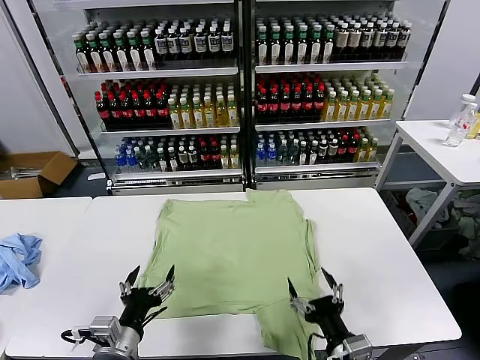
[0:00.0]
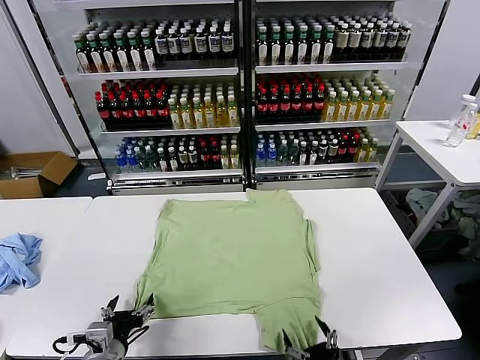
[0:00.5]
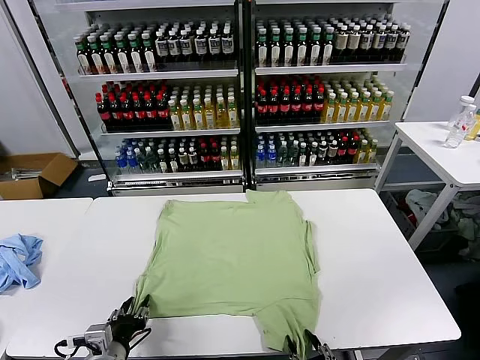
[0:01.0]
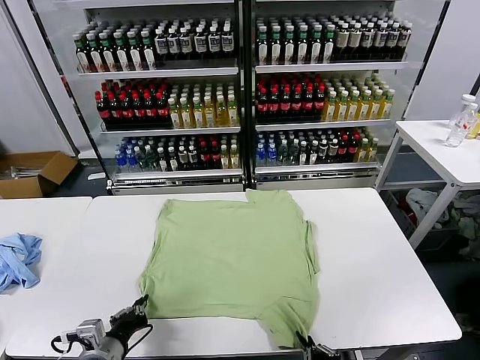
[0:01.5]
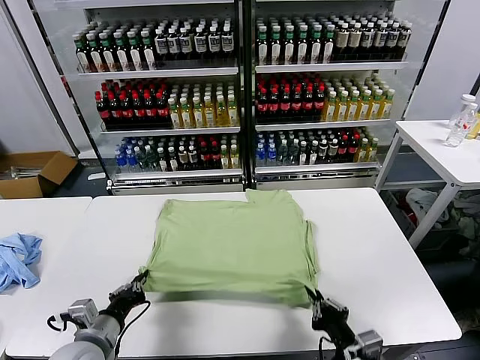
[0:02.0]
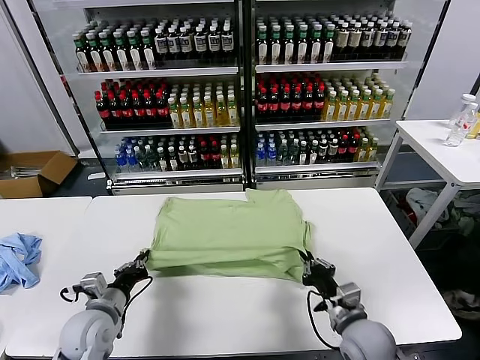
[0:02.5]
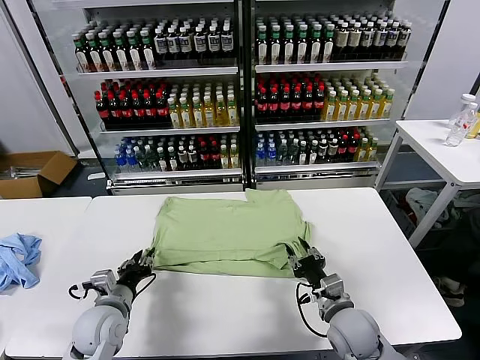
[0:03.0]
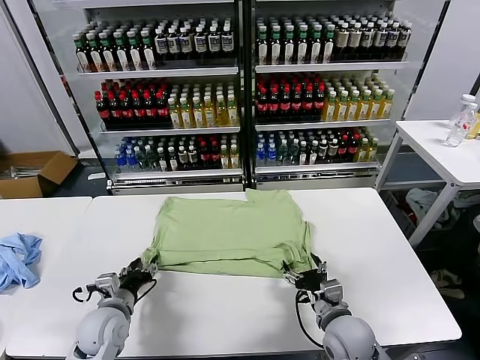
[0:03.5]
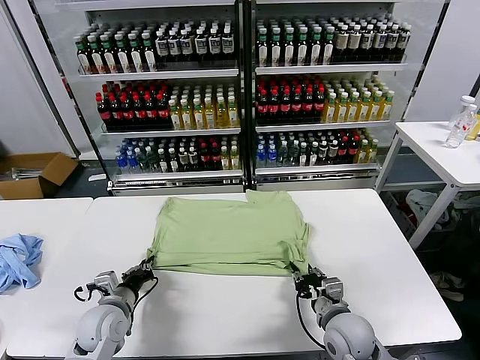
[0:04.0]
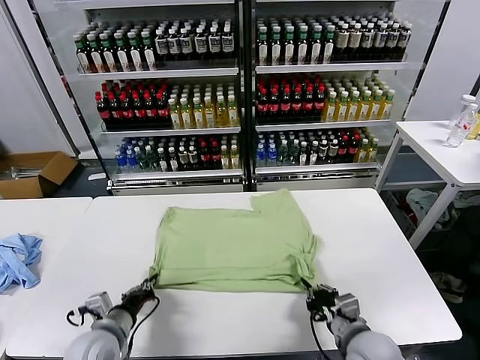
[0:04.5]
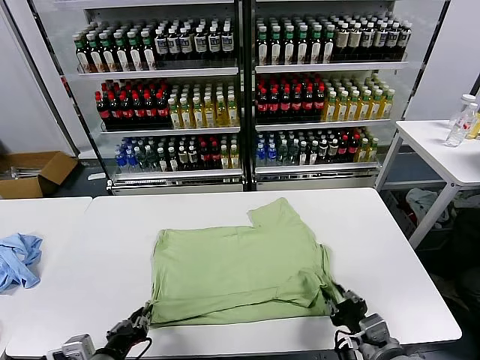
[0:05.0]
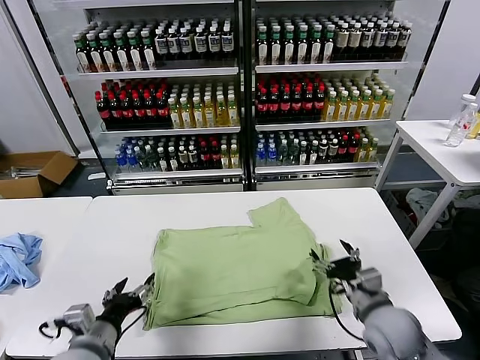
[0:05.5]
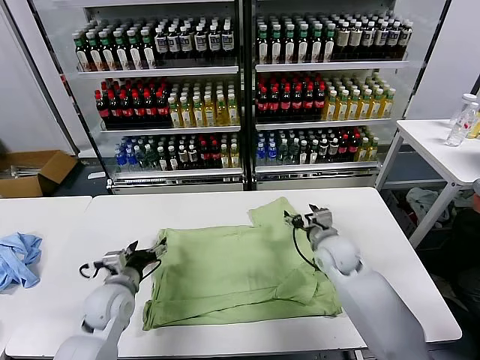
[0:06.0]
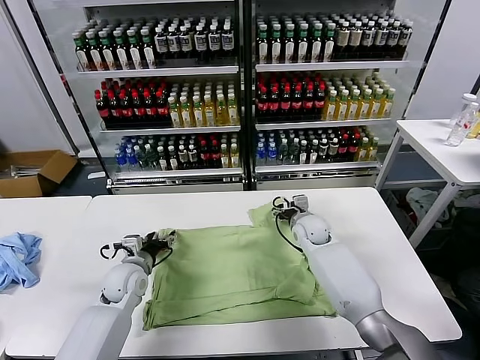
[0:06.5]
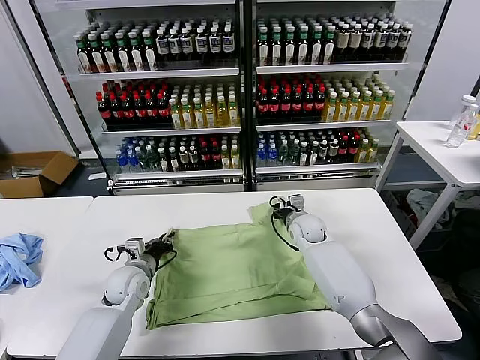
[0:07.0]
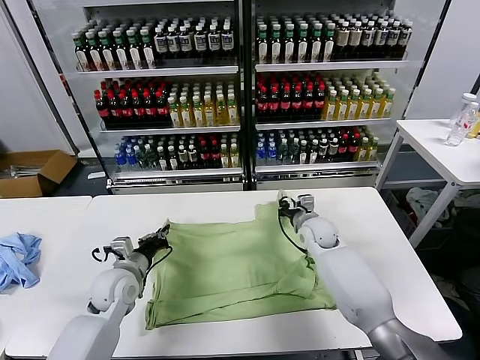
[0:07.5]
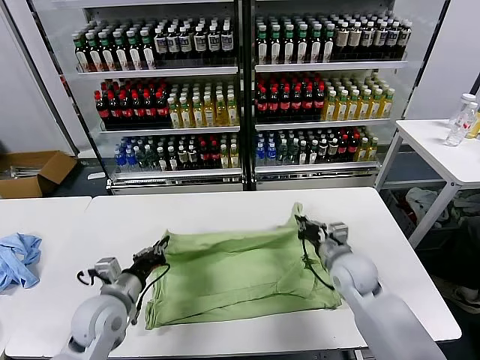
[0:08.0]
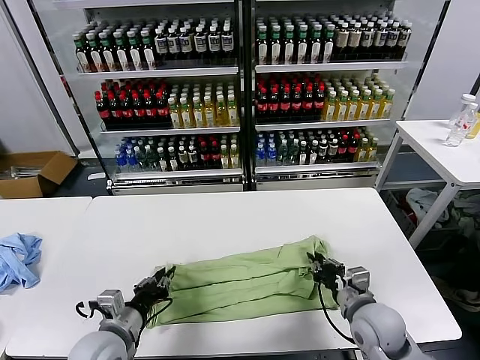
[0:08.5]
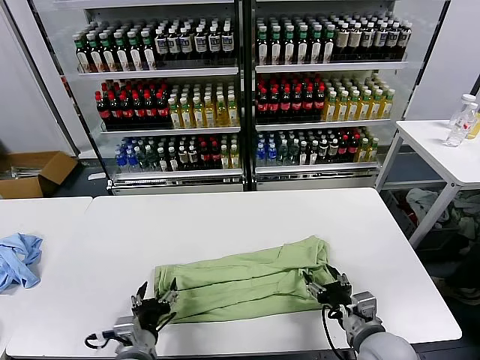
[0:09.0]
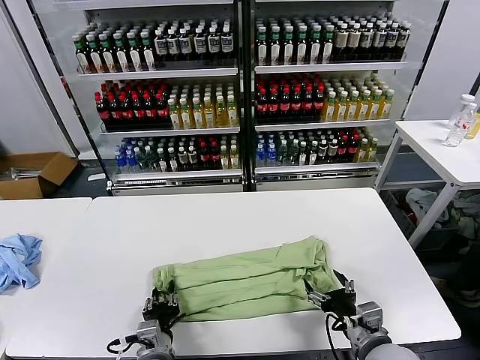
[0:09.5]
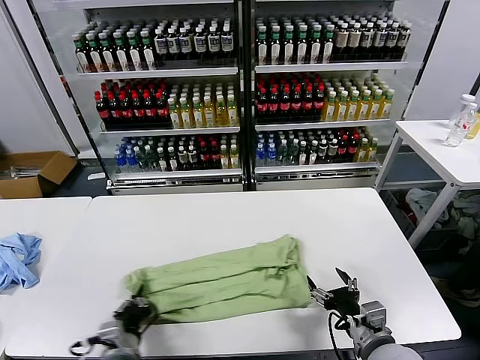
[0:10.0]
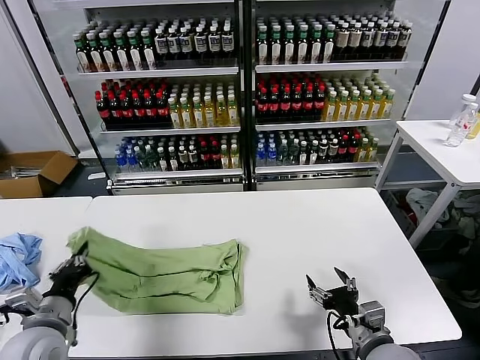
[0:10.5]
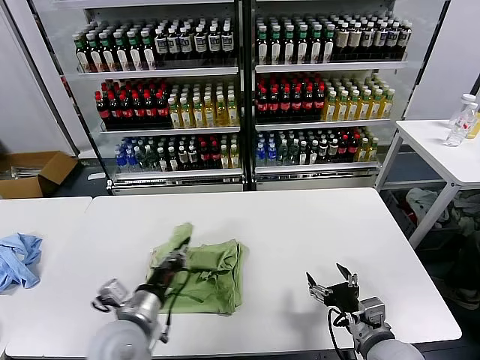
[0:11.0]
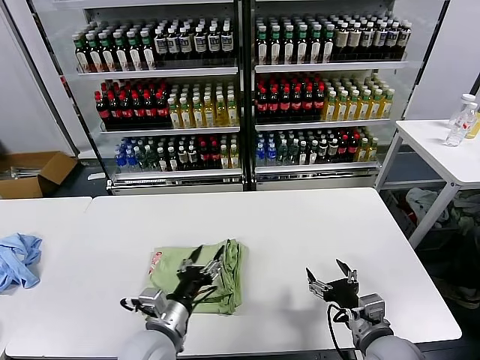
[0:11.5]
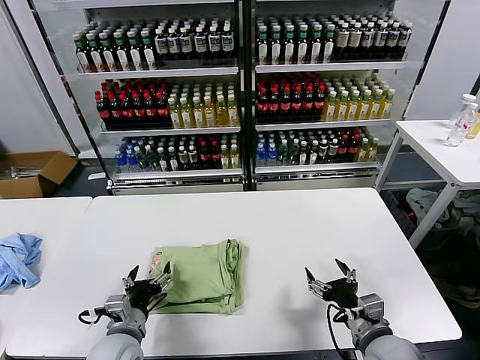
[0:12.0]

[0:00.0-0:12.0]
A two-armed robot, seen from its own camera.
Task of the whole recording: fold and organize the clothes.
Step, 0:00.0 to 0:01.0: use both grippers simultaneously to clamp the lower edge of the clothing fabric.
Step, 0:02.0 to 0:03.0: use both grippers to drag the lower edge of the fabric forward and fold it over the upper edge.
Step, 0:03.5 to 0:05.0: Drag the clothes downward with both gripper.
Step, 0:05.5 to 0:07.0: use both grippers simultaneously to clamp the upper edge of the clothing fabric.
Step, 0:07.5 to 0:08.5: use both grippers to drag the upper edge of the fabric backward and fold it over the lower edge.
Step, 0:09.0 to 0:09.5: use the left gripper to clamp the left edge of the fabric.
Step, 0:10.0 to 0:11.0: use the left gripper to drag the left edge of the fabric to the left and folds it over the right edge.
0:02.0 to 0:04.0: The left gripper shifts roughly 10 cm forward and downward, and opens and closes again. The right gripper heads forward, covering some 10 cm, and opens, then closes again.
0:04.0 to 0:06.0: The right gripper travels forward by approximately 15 cm, and opens its fingers. The left gripper travels backward and back again, approximately 15 cm each way, and opens its fingers.
0:06.0 to 0:08.0: The right gripper reaches about 10 cm forward, then returns, and closes, while the left gripper ends up about 5 cm from where it was, and closes.
0:08.0 to 0:10.0: The right gripper shifts roughly 20 cm backward, and opens its fingers. Meanwhile the left gripper shifts roughly 15 cm backward and downward, and opens, then closes once more.
0:10.0 to 0:12.0: The left gripper moves left and right over approximately 20 cm, changing direction 2 times, and opens its fingers.

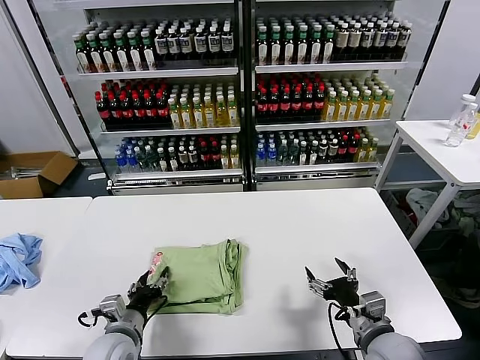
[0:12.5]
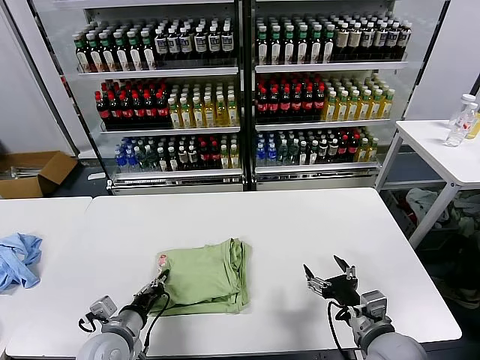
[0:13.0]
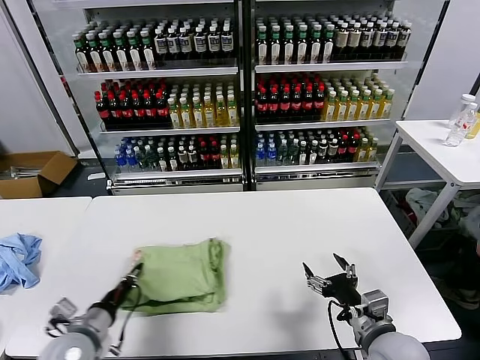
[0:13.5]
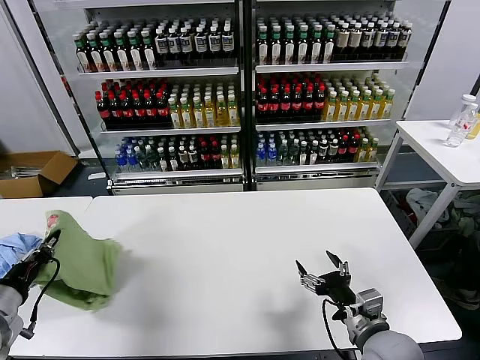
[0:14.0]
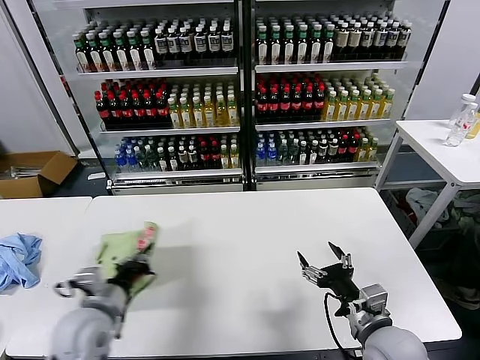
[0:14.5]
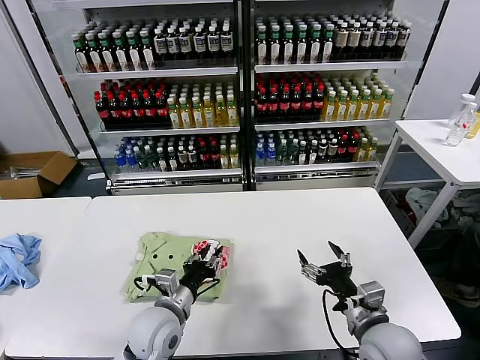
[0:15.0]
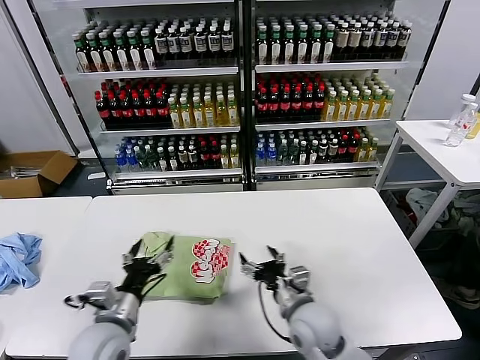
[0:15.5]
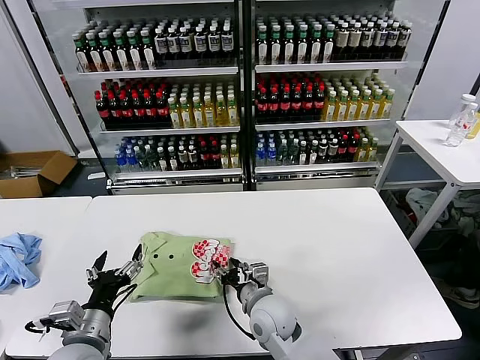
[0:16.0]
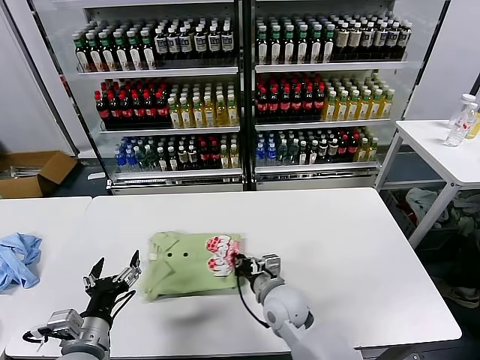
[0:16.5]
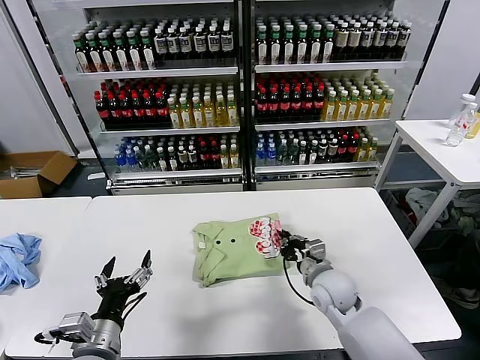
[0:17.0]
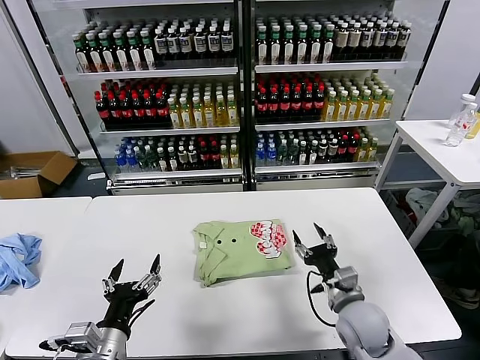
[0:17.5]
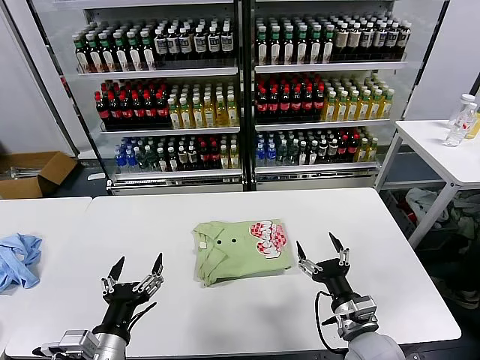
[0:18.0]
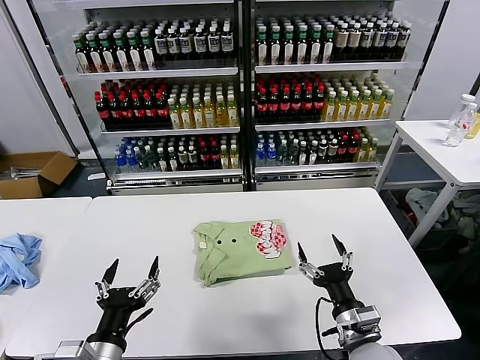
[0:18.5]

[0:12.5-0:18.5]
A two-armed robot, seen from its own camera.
Task of the whole recording: fold and organize the clothes.
Step, 0:12.5 to 0:15.0: Flip the folded clothes over with left gripper.
Step, 0:15.5 to 0:17.0: Drag the clothes to the center of the table.
0:12.5 to 0:14.5: The left gripper goes approximately 10 cm upward, goes to the left and returns, approximately 15 cm each way, and closes.
0:14.5 to 0:16.5: The right gripper is displaced to the left and forward by roughly 20 cm, and closes its fingers; the left gripper travels backward by some 5 cm, reaches about 15 cm to the right, then returns, and opens up.
0:16.5 to 0:18.5: The left gripper travels backward by some 5 cm. The right gripper goes roughly 20 cm to the right and backward, and opens up.

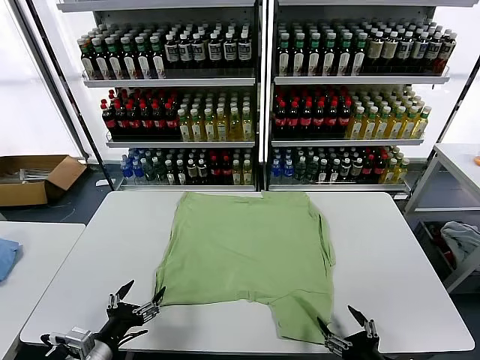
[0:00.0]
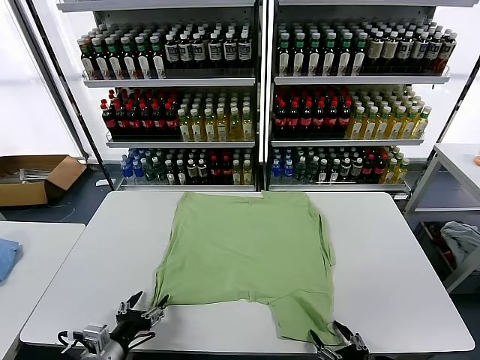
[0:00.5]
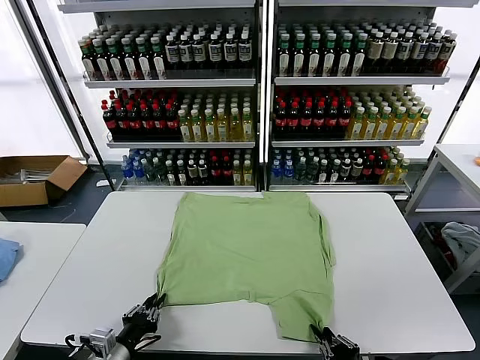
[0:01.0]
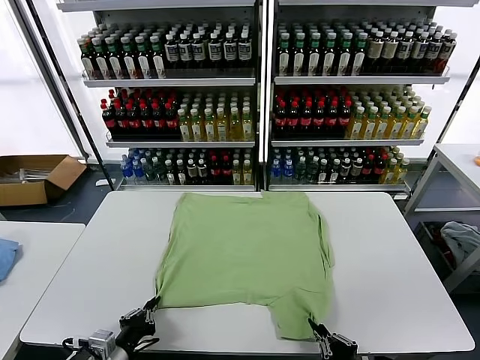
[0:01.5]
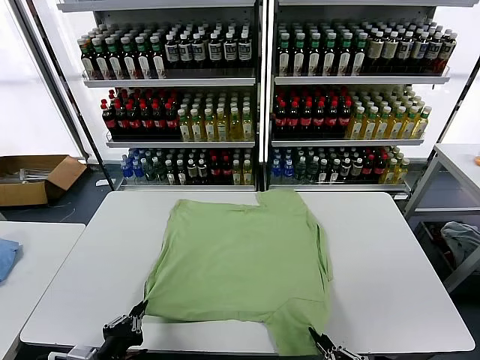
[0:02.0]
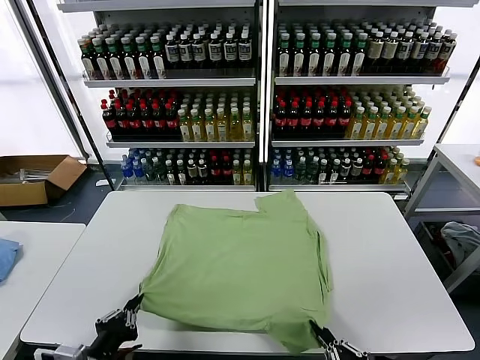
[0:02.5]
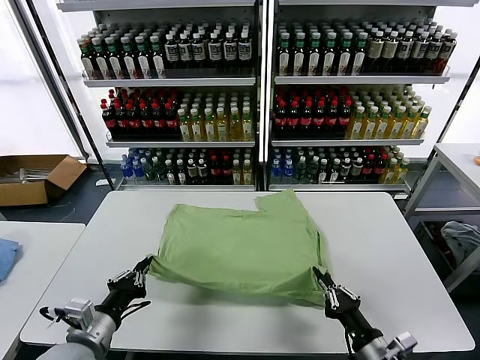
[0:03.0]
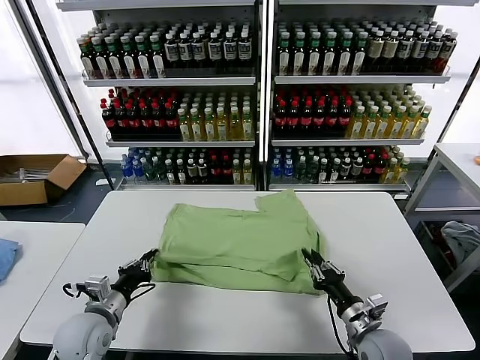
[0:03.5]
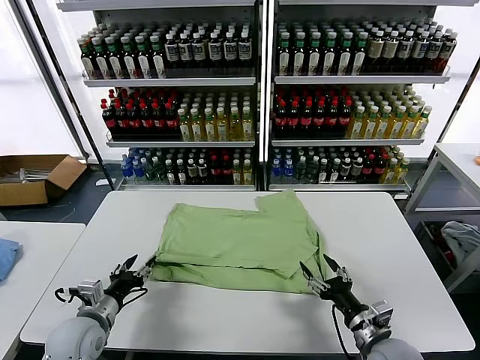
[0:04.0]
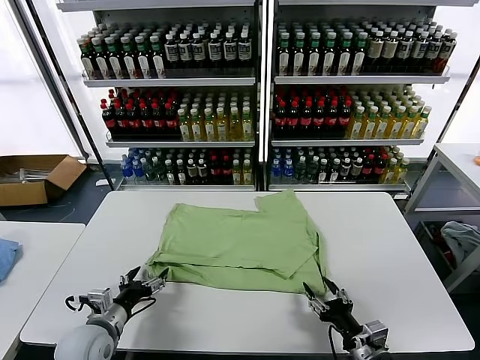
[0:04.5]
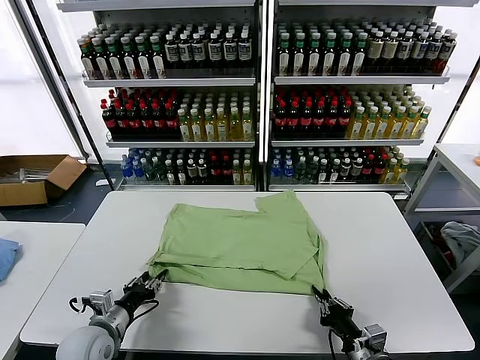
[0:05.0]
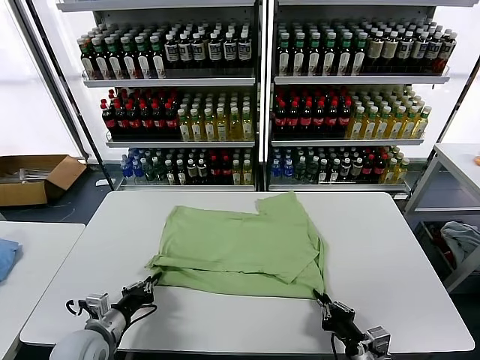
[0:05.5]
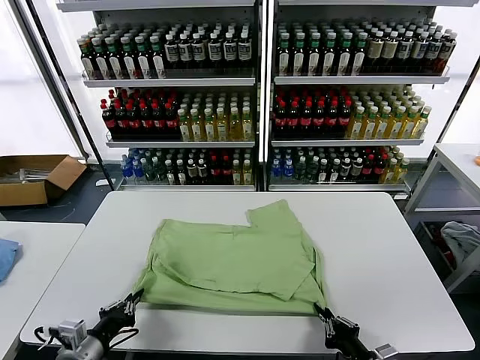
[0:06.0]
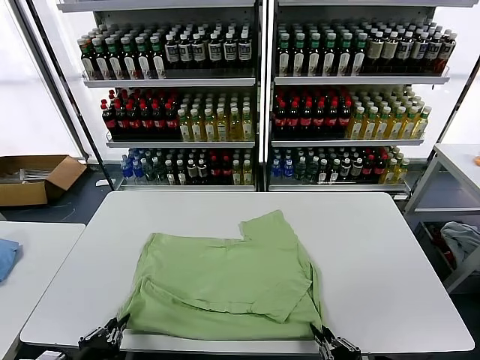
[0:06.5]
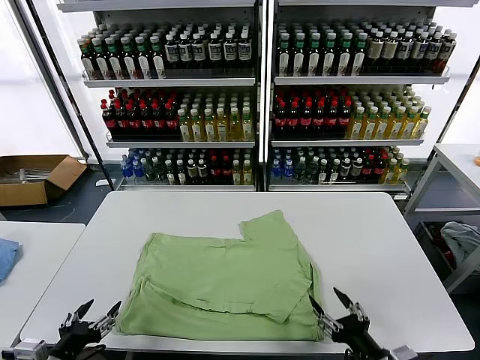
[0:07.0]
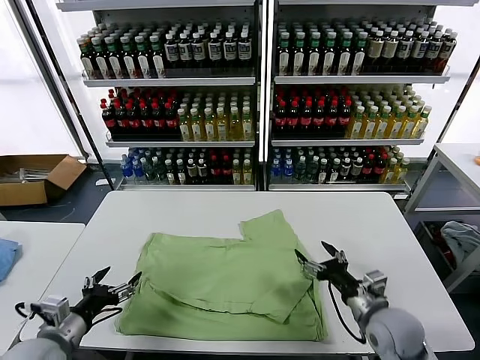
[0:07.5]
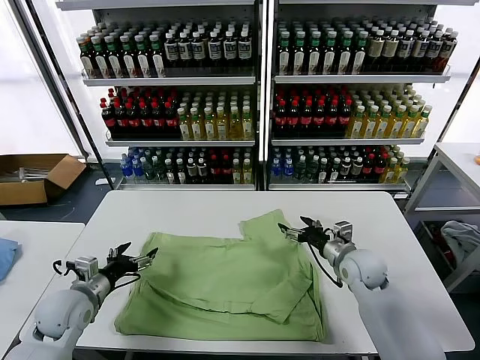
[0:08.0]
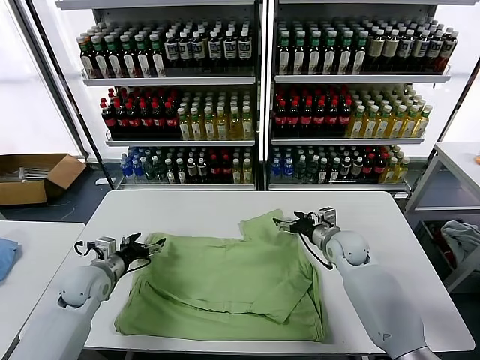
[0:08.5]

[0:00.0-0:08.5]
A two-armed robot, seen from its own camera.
Task of the whole recording: fold and organize the clothes.
Step, 0:00.0 to 0:01.0: use both grippers simultaneously to clamp the lower edge of the clothing fabric.
Step, 0:01.5 to 0:03.5: use both grippers to drag the lower edge of the fabric forward and fold it over the upper edge.
Step, 0:04.0 to 0:06.5: Drag the clothes downward with both gripper.
0:02.0 to 0:04.0: Both grippers move forward, approximately 15 cm. The left gripper opens. Meanwhile the right gripper opens.
0:04.0 to 0:06.5: Both grippers move backward, some 15 cm. The left gripper closes its fingers. Meanwhile the right gripper closes.
0:06.5 to 0:08.5: Both grippers move forward, approximately 35 cm. The left gripper opens; the right gripper opens its fingers.
